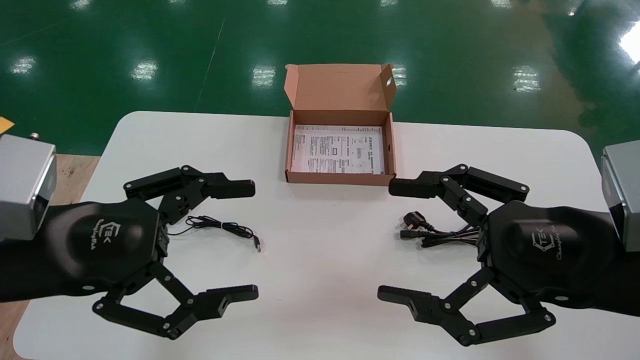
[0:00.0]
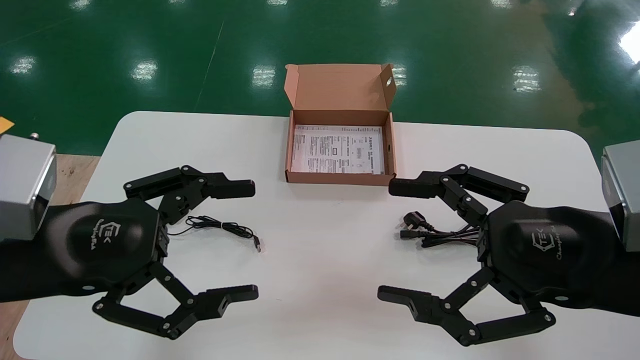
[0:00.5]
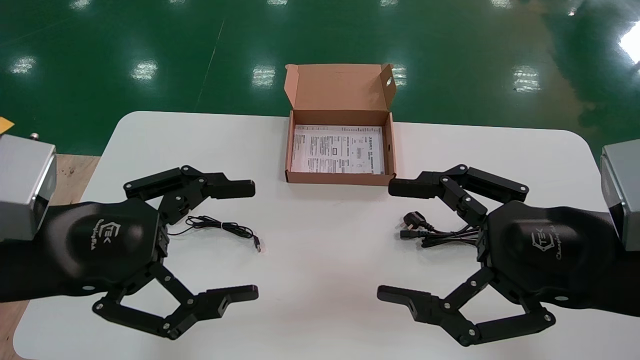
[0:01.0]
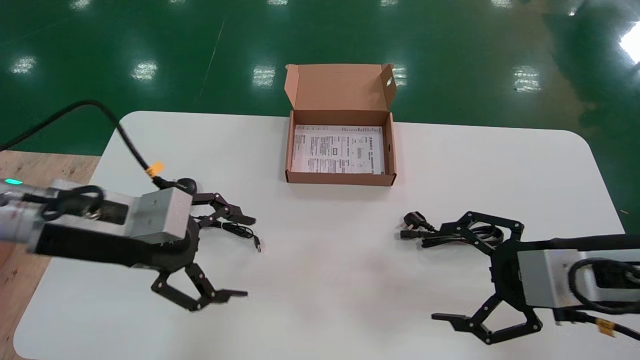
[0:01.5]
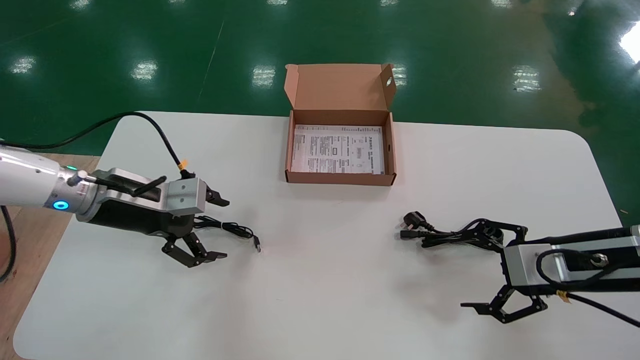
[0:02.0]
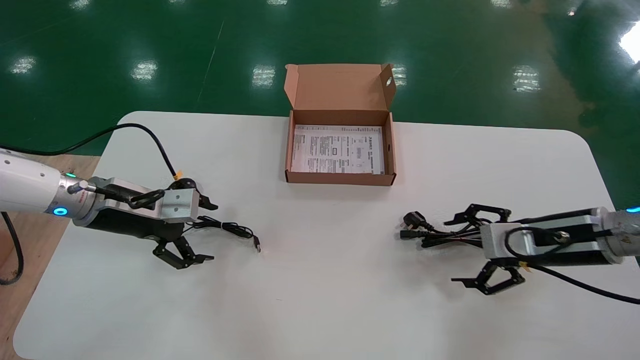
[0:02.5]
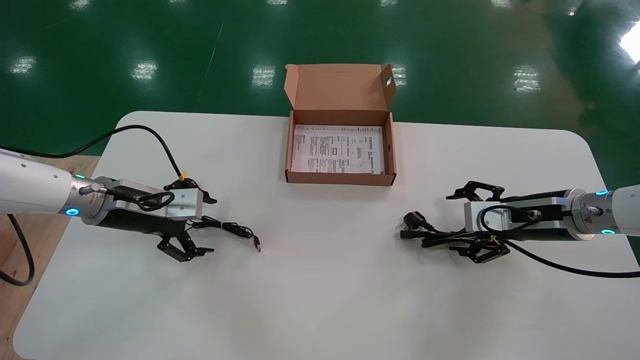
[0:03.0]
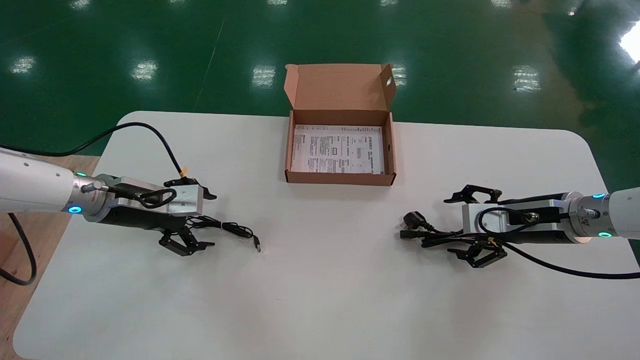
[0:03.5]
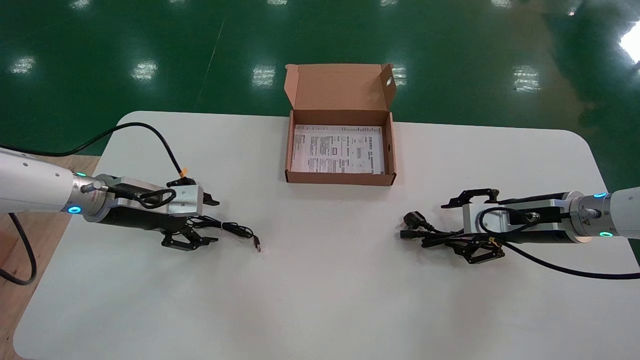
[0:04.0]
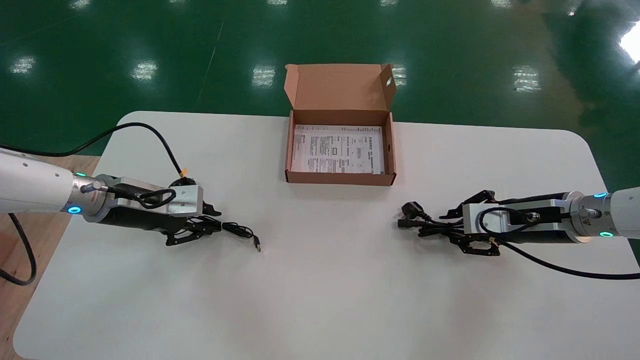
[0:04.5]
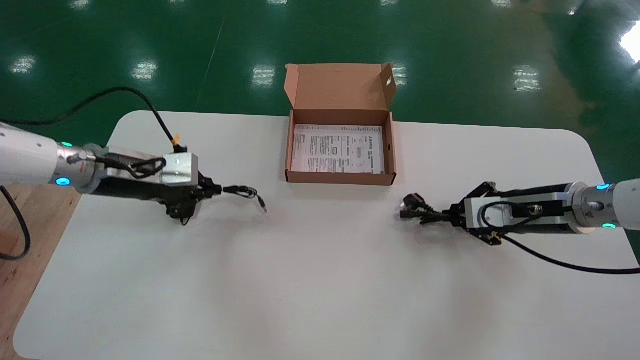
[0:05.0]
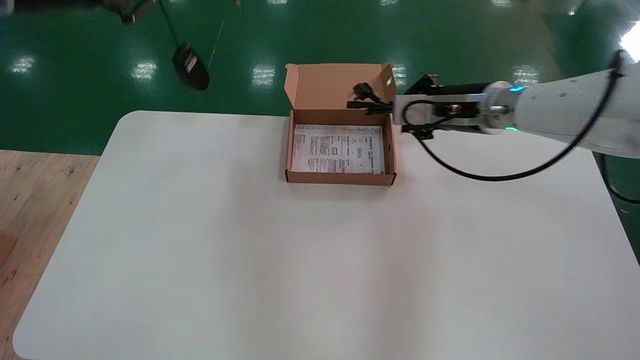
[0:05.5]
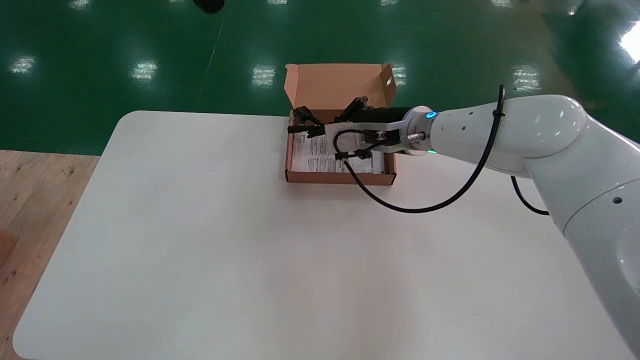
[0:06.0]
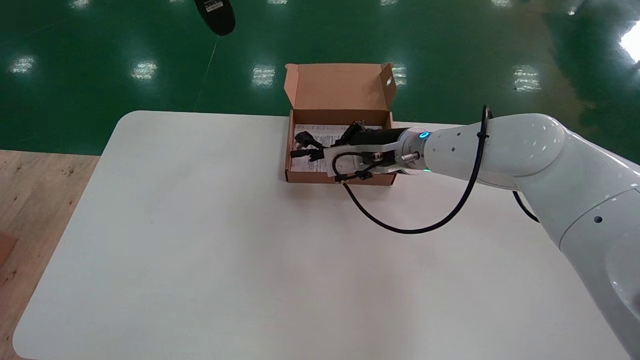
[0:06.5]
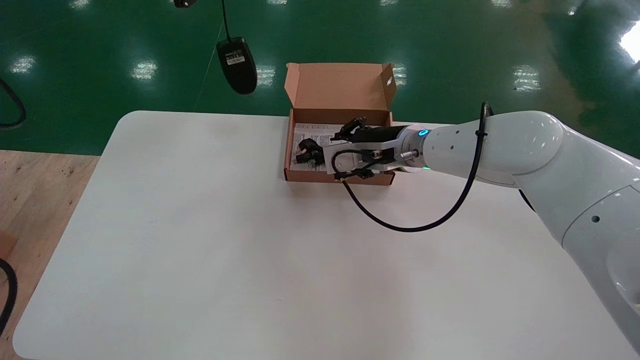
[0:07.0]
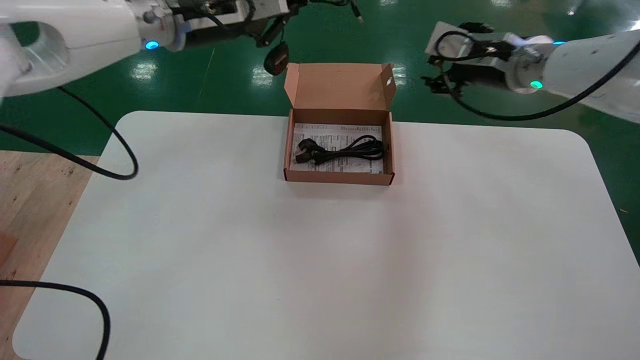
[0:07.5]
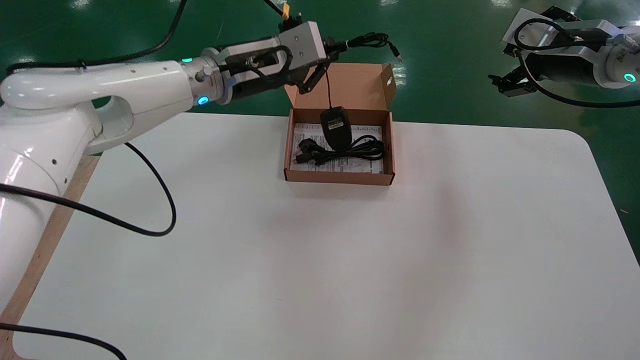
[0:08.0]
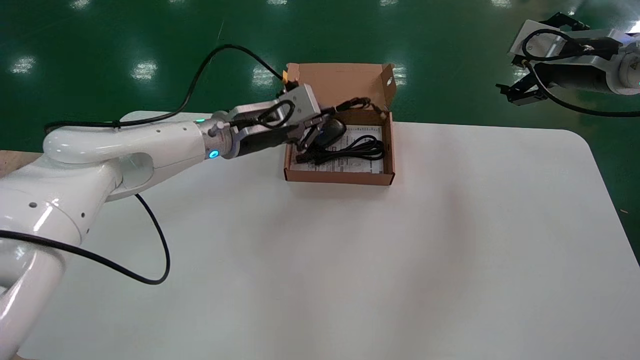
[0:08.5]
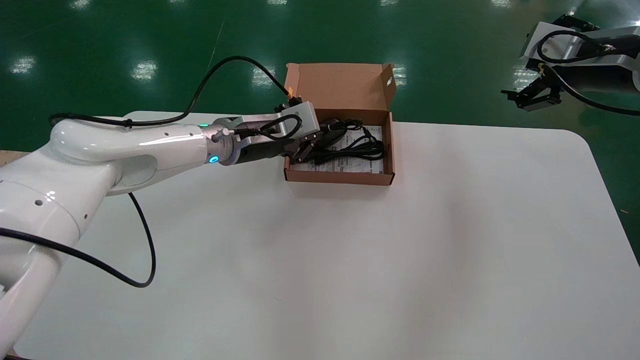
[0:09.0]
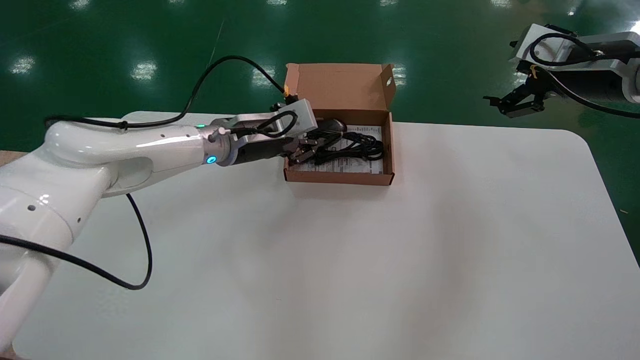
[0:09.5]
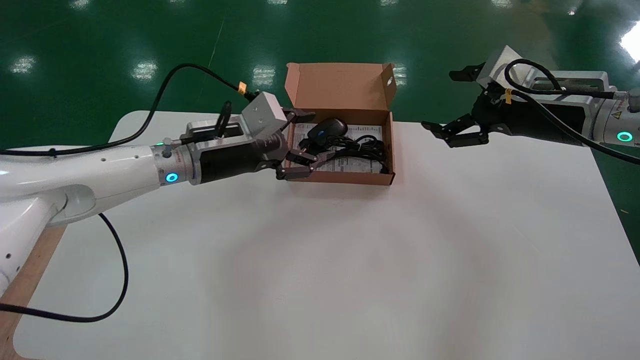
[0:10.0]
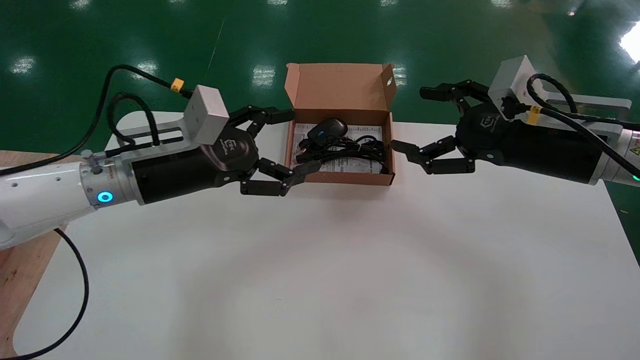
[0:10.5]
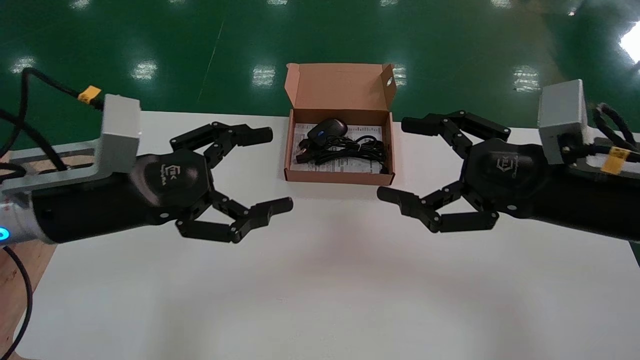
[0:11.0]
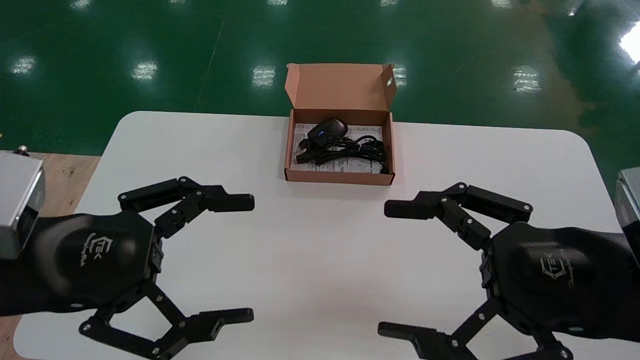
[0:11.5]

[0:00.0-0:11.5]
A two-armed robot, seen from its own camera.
Step, 0:01.5 to 0:04.5: Simultaneously pick up the mouse and power cord from the accessory packaging area.
Step, 0:05.0 to 0:10.0: Place the mouse and power cord into the box.
0:00.0 to 0:02.0: The right gripper shifts roughly 15 cm forward, to the right and downward. Meanwhile the left gripper is displaced forward by roughly 20 cm.
0:02.0 to 0:04.0: The left gripper ends up roughly 5 cm from where it was. The right gripper goes approximately 10 cm forward.
0:04.0 to 0:06.0: The left gripper travels upward by approximately 35 cm, and closes up. The right gripper travels to the left and upward by roughly 25 cm, and closes.
0:06.0 to 0:07.5: The left gripper is displaced to the right, downward and forward by about 15 cm; the right gripper shifts roughly 15 cm to the right and upward, and opens up.
0:07.5 to 0:09.5: The left gripper moves downward, about 15 cm; the right gripper travels to the right and backward by some 10 cm, and opens up.
0:09.5 to 0:11.5: The right gripper goes roughly 25 cm backward, downward and to the left. The left gripper goes approximately 30 cm backward and to the left, and opens its fingers.

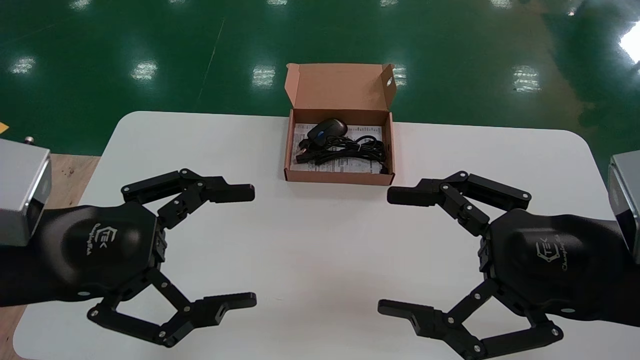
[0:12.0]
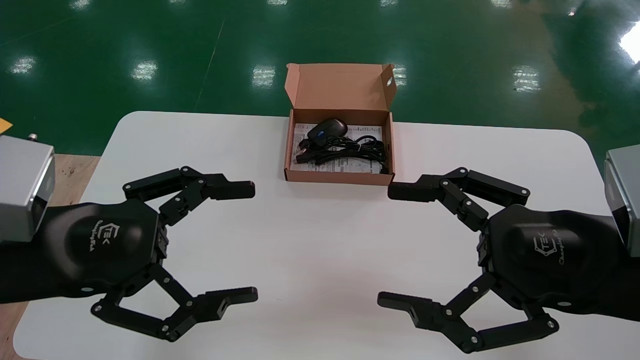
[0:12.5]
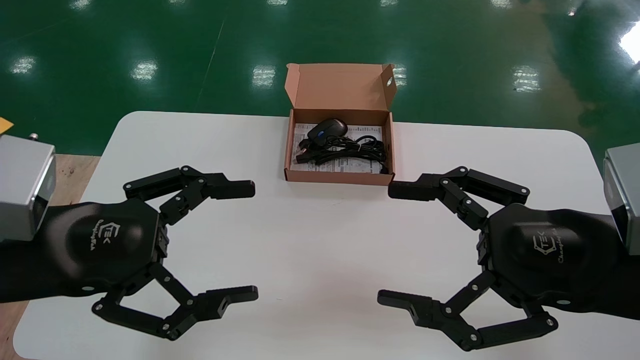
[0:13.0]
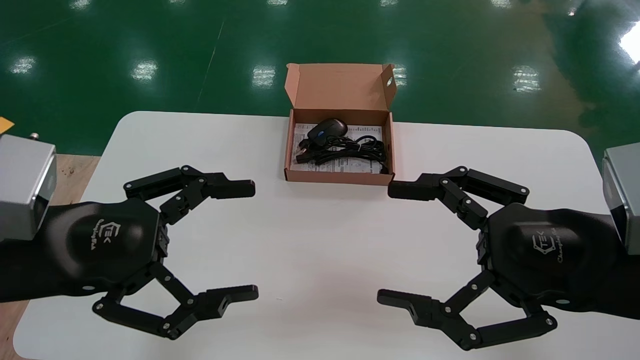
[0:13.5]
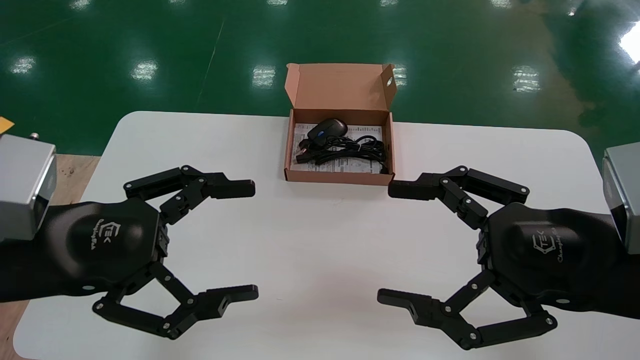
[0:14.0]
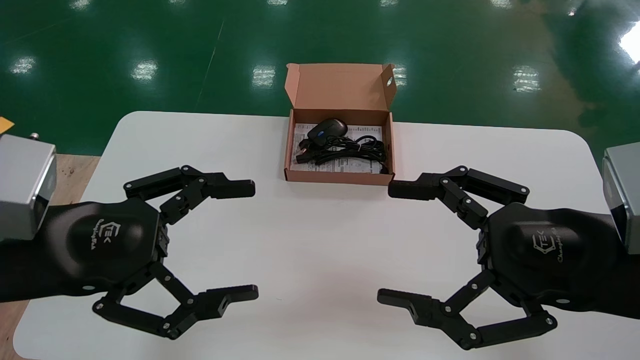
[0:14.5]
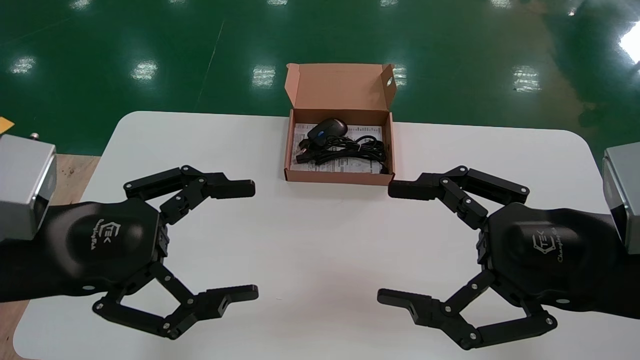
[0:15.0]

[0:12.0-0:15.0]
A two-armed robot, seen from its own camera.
0:12.0 to 0:15.0: Both grippers stay put.
